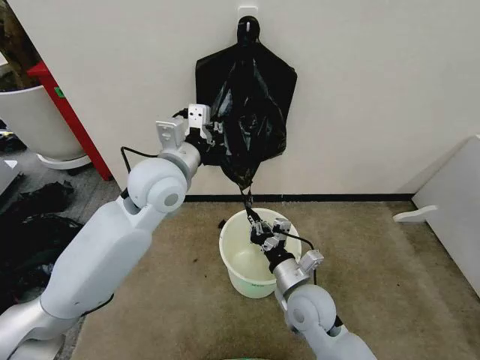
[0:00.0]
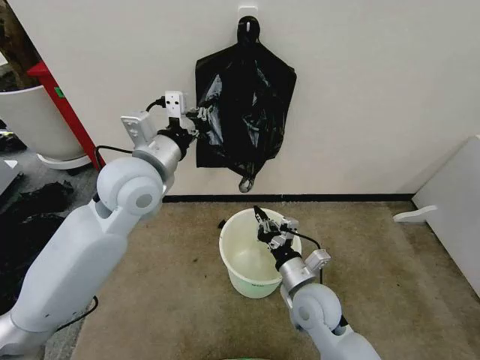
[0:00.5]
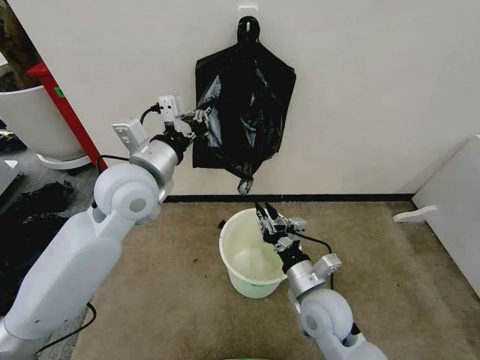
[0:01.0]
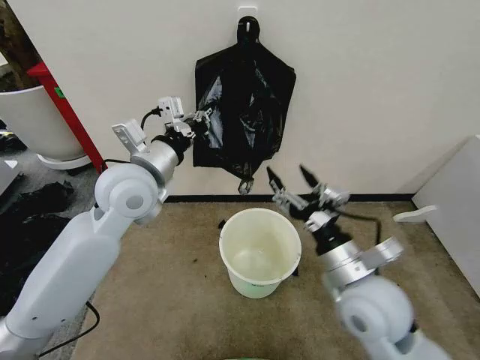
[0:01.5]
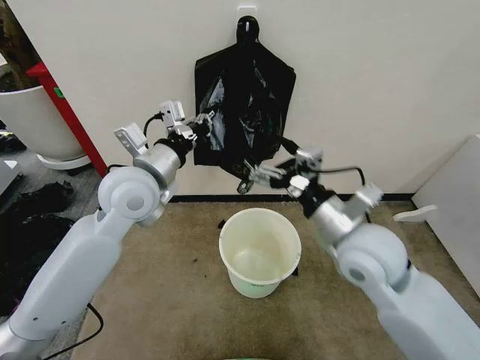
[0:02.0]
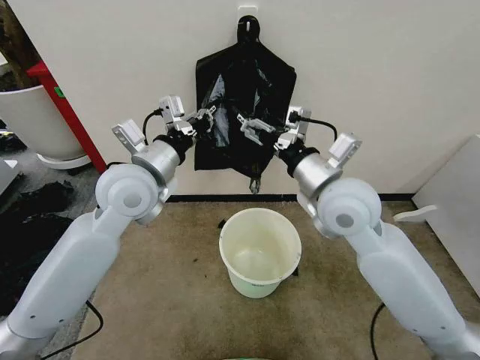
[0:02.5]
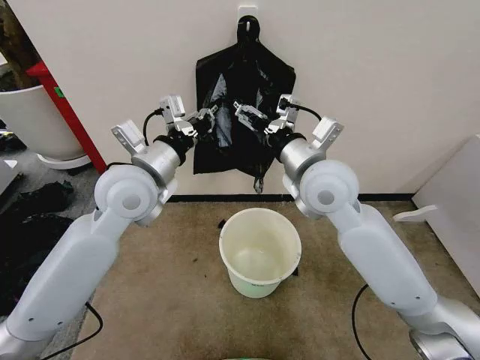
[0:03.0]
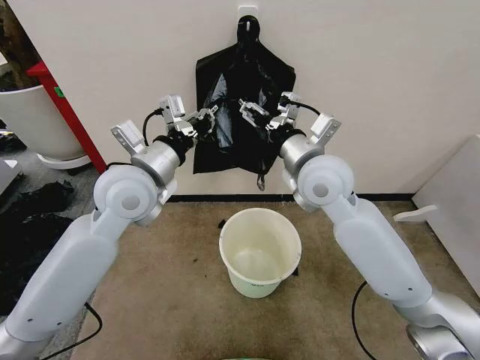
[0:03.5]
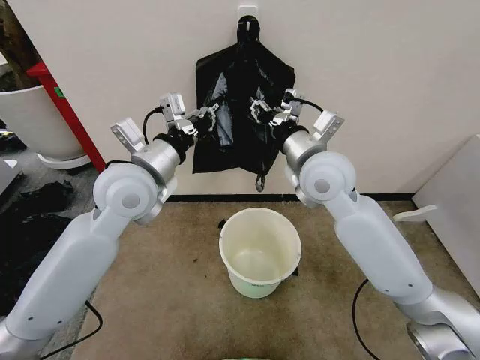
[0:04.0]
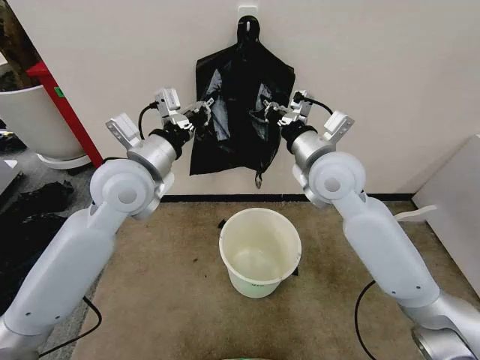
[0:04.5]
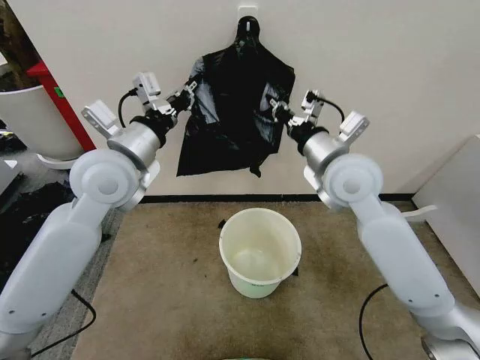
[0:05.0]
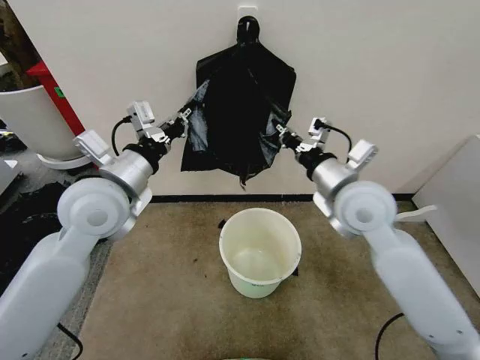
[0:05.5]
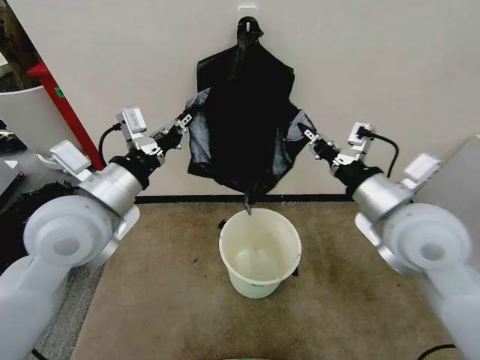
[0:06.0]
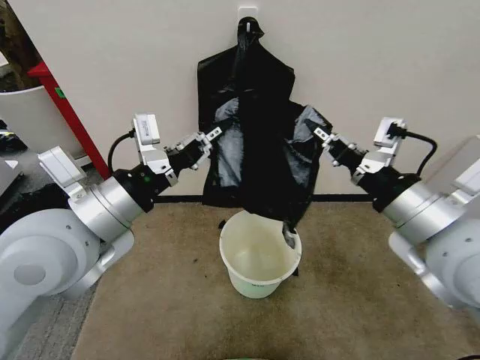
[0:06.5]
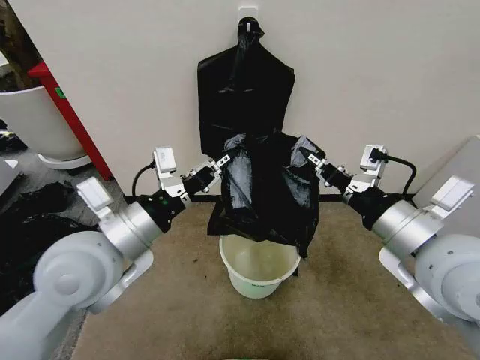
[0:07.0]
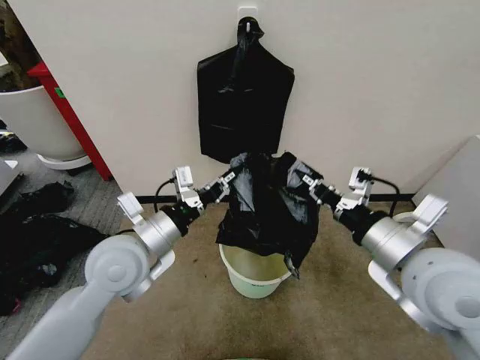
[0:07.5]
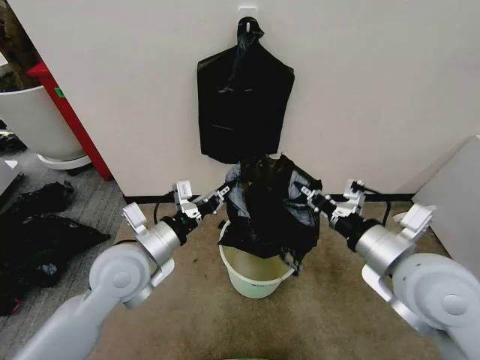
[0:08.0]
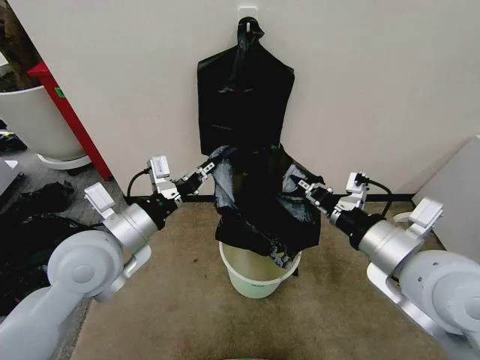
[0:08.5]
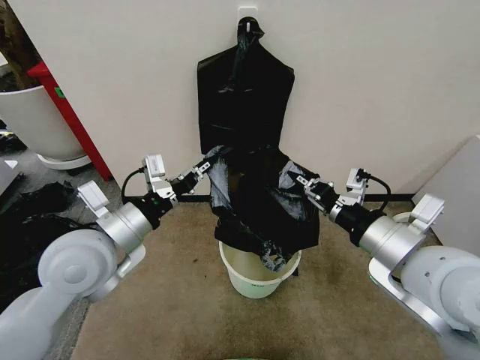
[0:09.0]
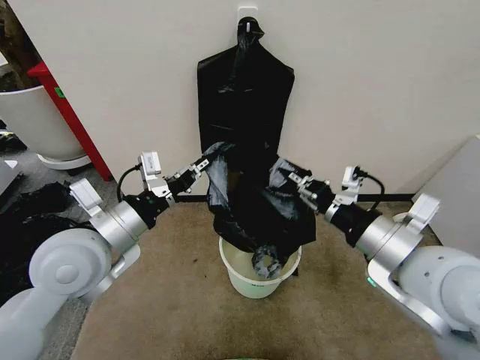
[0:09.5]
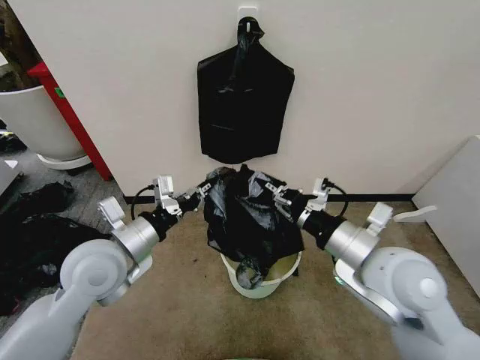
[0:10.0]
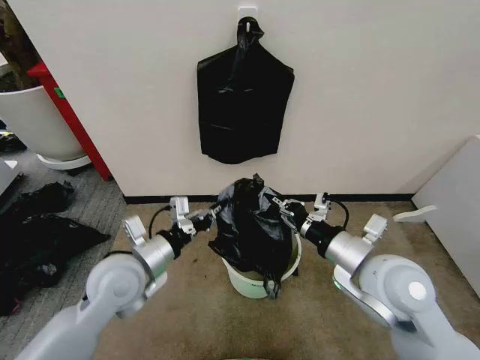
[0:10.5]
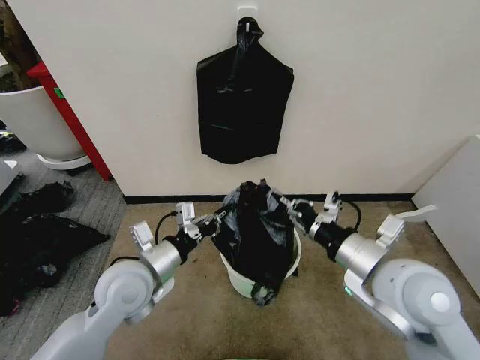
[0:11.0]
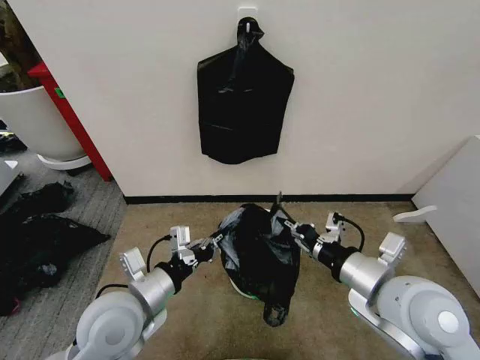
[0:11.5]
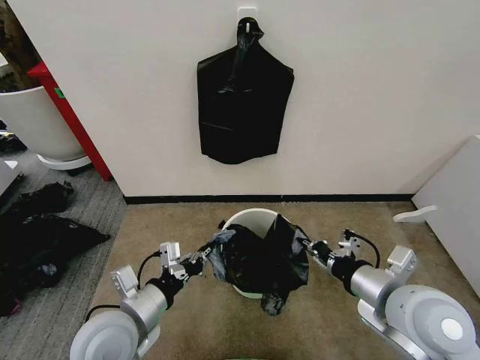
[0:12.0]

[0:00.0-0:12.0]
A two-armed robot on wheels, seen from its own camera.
Task of the whole recording: Place the garbage bag over the trash bin.
0:00.0 to 0:02.0: The right gripper is displaced upward by approximately 20 cm, and opens up.
0:02.0 to 0:04.0: The right gripper heads forward, upward and to the left, covering approximately 15 cm, and closes up.
0:04.0 to 0:06.0: The right gripper is displaced backward and to the right by some 15 cm, and closes its fingers, while the left gripper heads backward, covering some 10 cm.
0:06.0 to 0:08.0: The left gripper heads downward, covering roughly 10 cm, while the right gripper travels backward by approximately 5 cm.
0:10.0 to 0:12.0: The left gripper heads backward and downward, covering some 10 cm. The right gripper ends up some 5 cm from where it was.

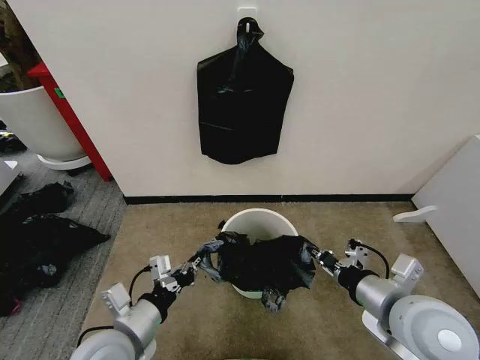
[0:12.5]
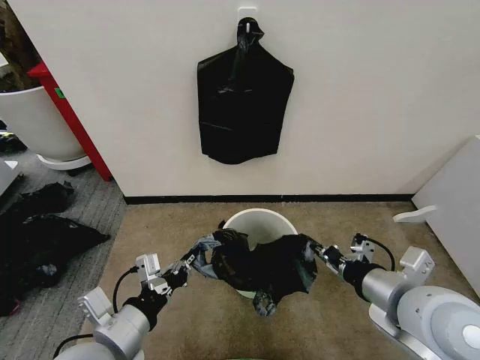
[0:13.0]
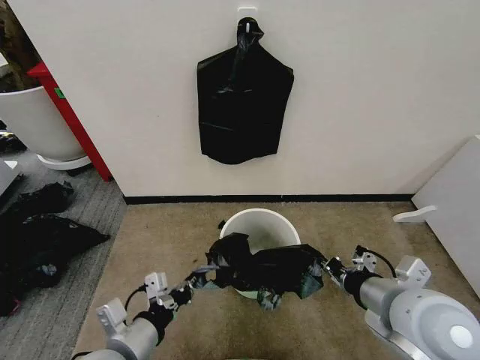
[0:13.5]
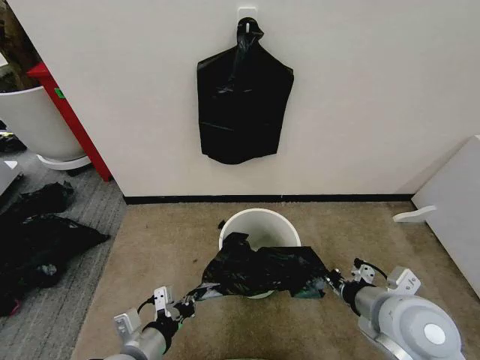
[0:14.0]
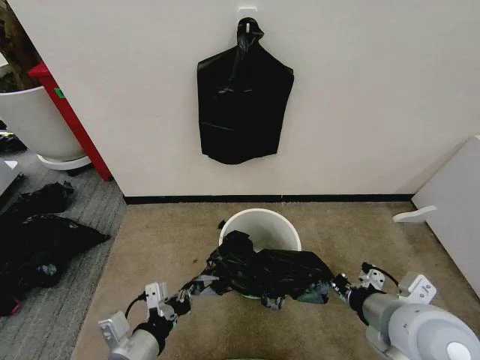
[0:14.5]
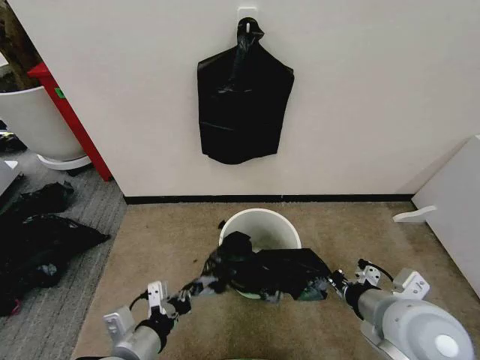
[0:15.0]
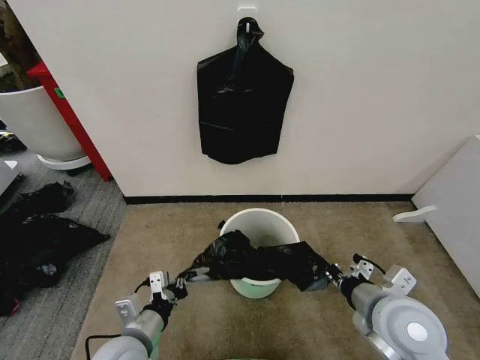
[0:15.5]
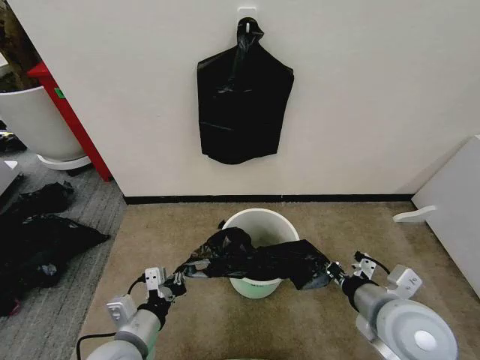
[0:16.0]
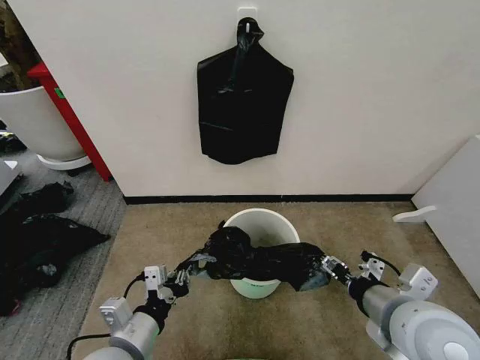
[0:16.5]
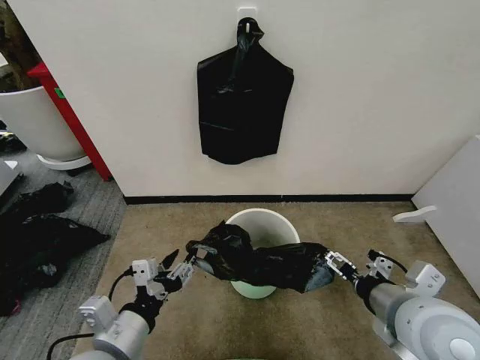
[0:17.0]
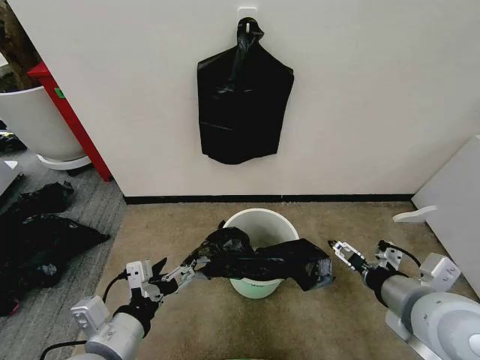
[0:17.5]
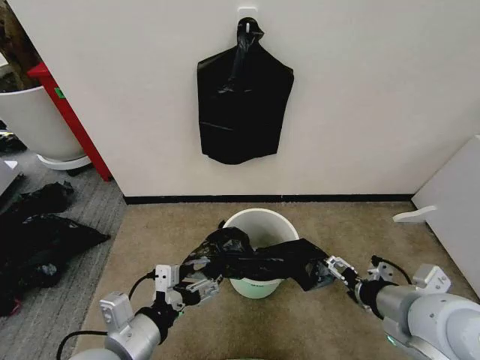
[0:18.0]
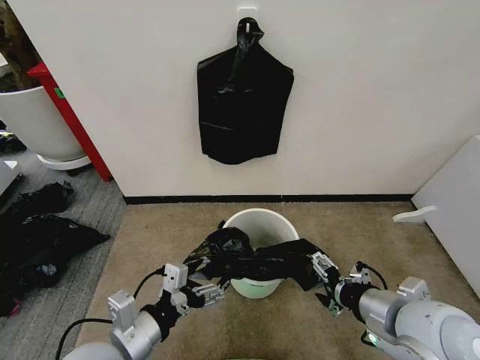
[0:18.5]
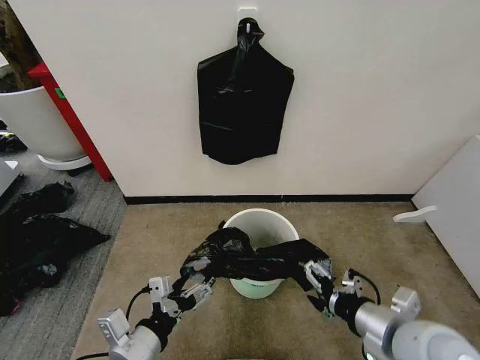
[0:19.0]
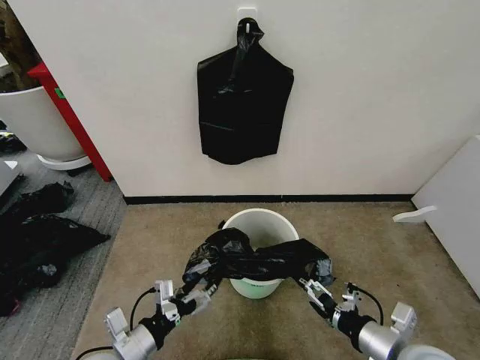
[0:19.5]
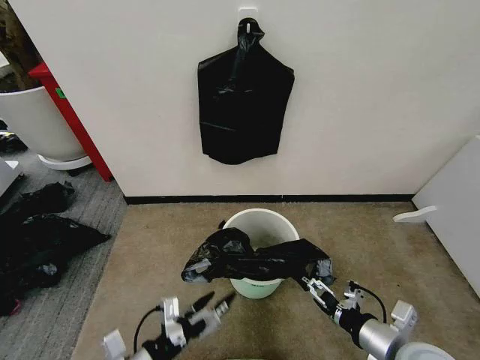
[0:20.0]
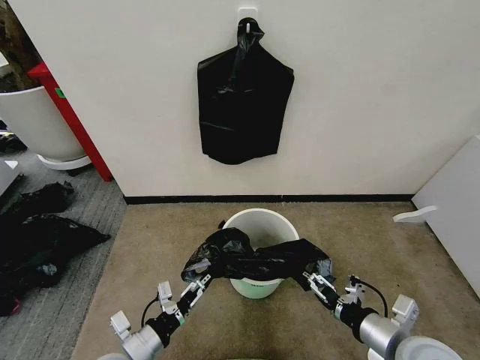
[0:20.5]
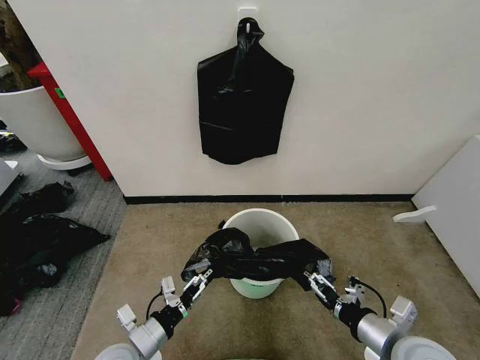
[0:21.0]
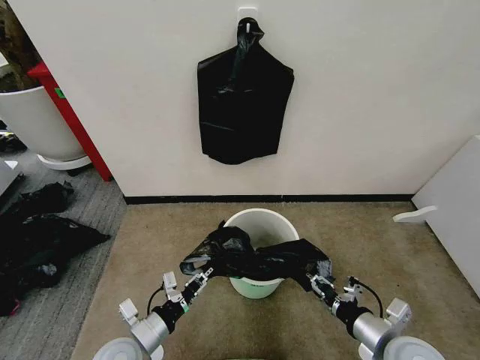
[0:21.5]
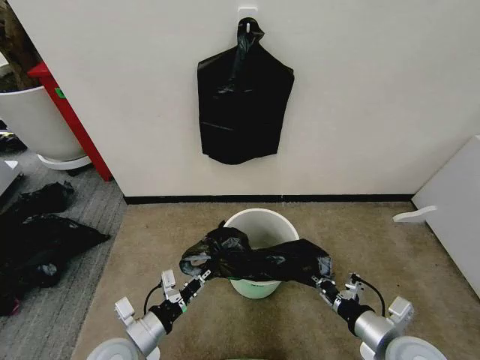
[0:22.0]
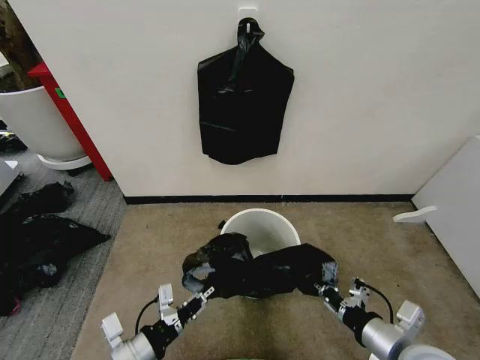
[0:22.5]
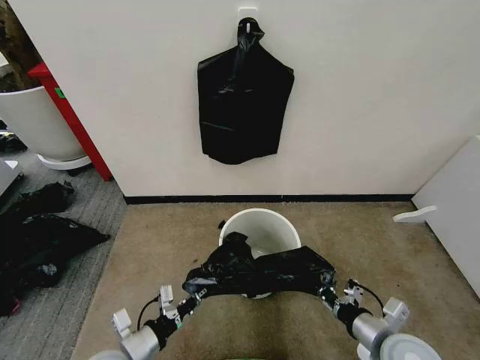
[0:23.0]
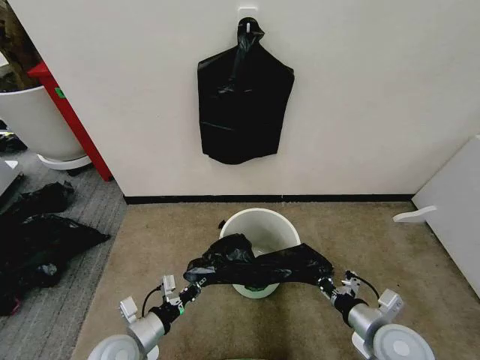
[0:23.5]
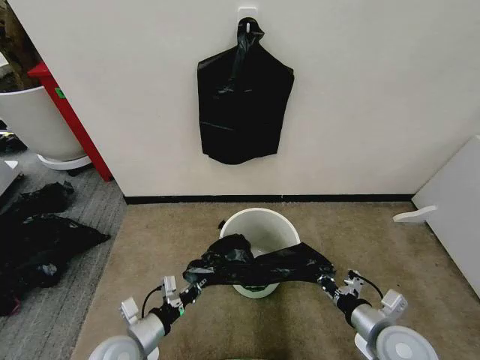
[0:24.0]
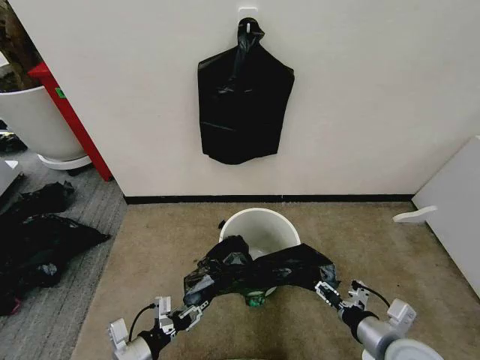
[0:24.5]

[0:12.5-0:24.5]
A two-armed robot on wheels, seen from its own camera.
Task of the whole recording: Place the garbage bag over the trash bin.
0:12.5 to 0:14.5: The left gripper moves up and down over about 10 cm, changing direction 2 times.
0:14.5 to 0:16.5: The right gripper opens up.
0:16.5 to 0:18.5: The left gripper opens its fingers, while the right gripper opens its fingers.
0:18.5 to 0:20.5: Both grippers move downward, some 10 cm.
0:20.5 to 0:22.5: The right gripper closes up, while the left gripper closes its fingers.
0:22.5 to 0:24.5: The left gripper heads downward, covering approximately 5 cm, and opens up. Meanwhile the right gripper opens.

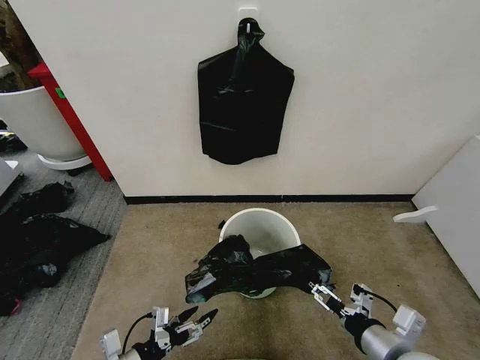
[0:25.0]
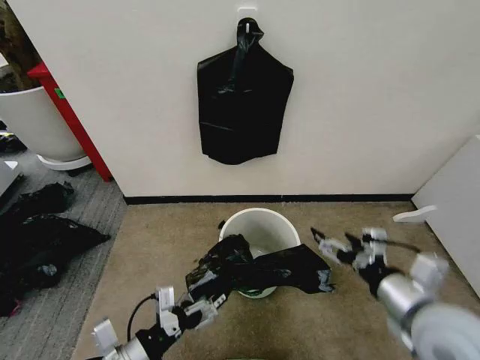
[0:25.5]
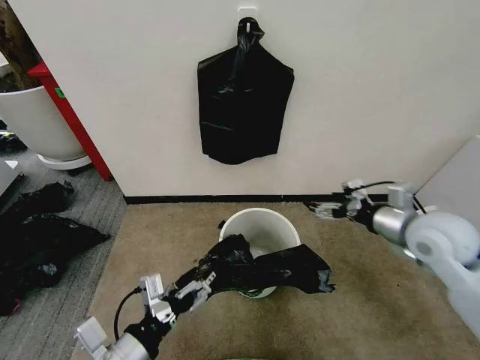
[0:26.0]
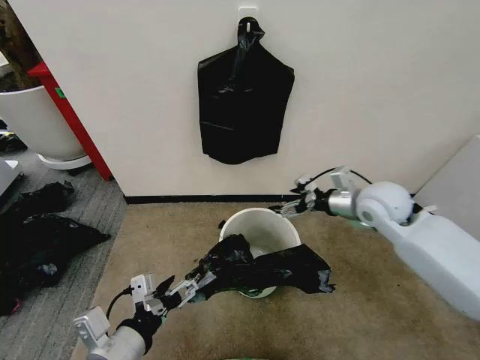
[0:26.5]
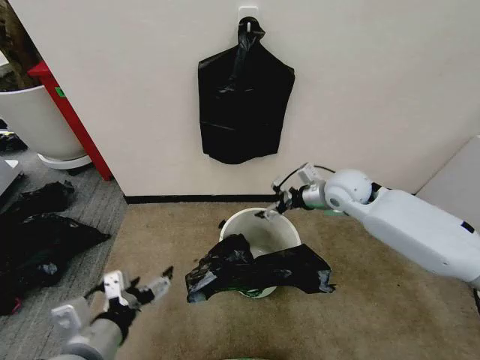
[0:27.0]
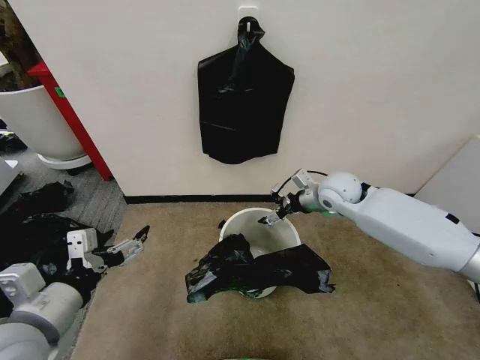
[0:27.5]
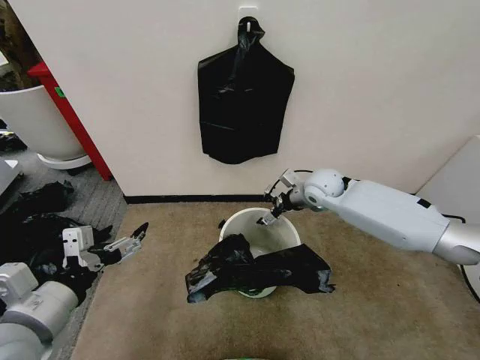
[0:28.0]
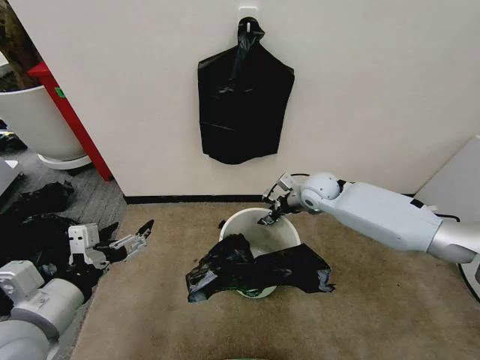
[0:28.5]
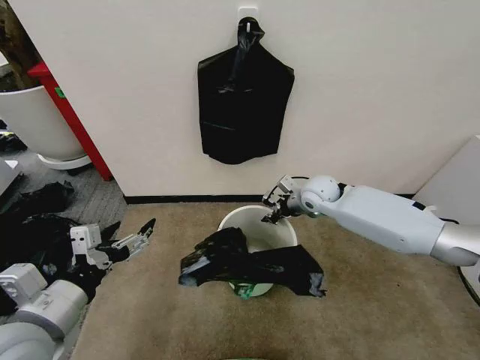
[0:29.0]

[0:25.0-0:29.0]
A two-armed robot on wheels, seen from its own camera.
Task of the whole recording: Place the garbage bag over the trash bin.
0:25.0 to 0:27.0: The left gripper travels upward by approximately 15 cm; the right gripper is displaced forward by about 35 cm.
0:27.0 to 0:29.0: The right gripper goes about 5 cm downward, and closes up. Meanwhile the left gripper is displaced to the left and upward by roughly 10 cm.
